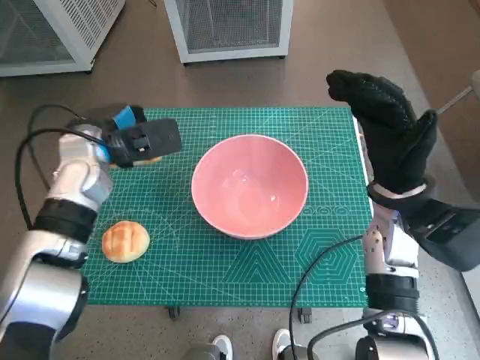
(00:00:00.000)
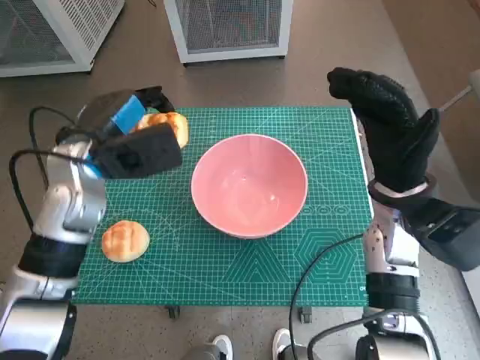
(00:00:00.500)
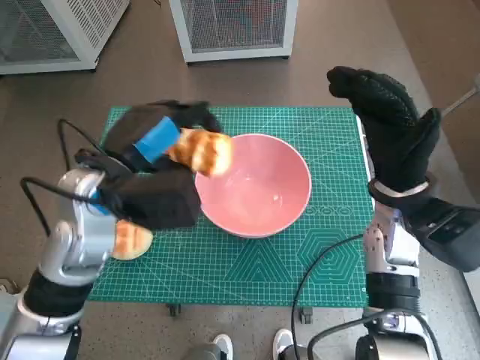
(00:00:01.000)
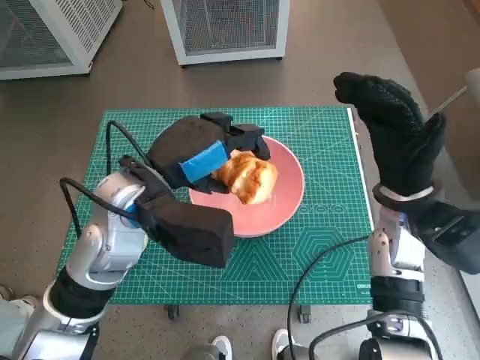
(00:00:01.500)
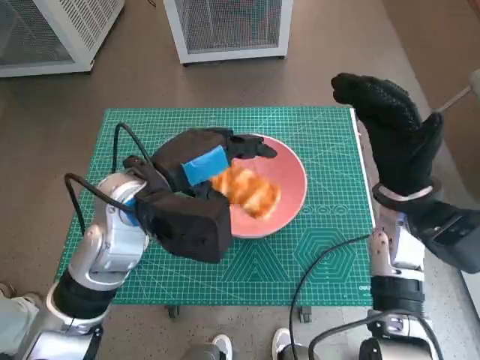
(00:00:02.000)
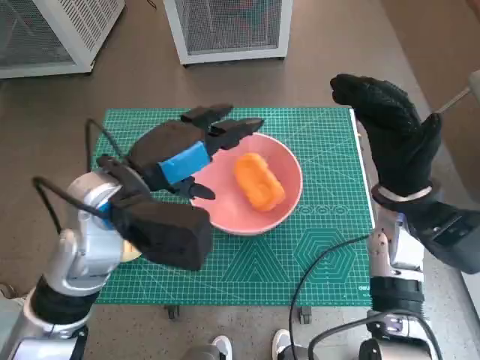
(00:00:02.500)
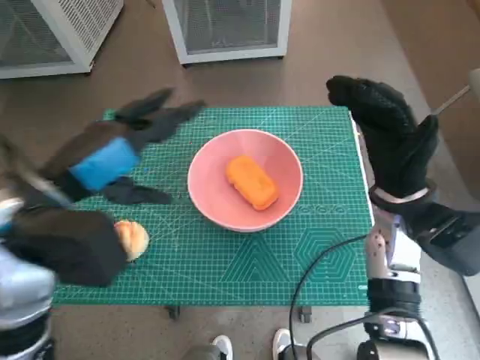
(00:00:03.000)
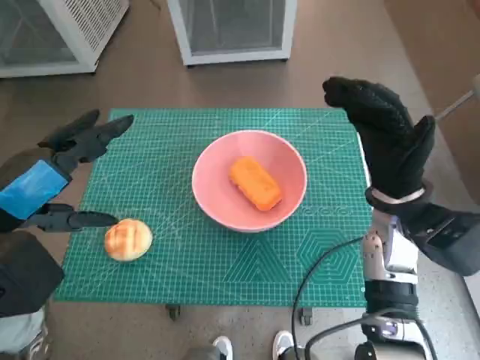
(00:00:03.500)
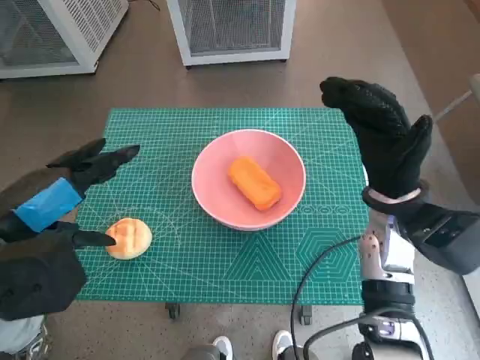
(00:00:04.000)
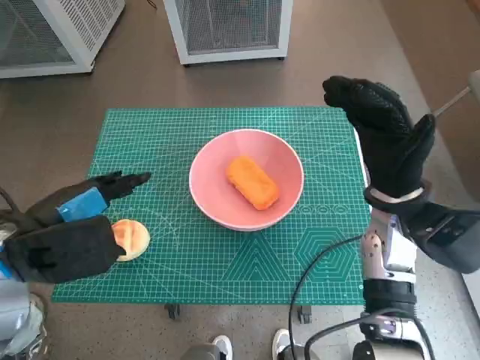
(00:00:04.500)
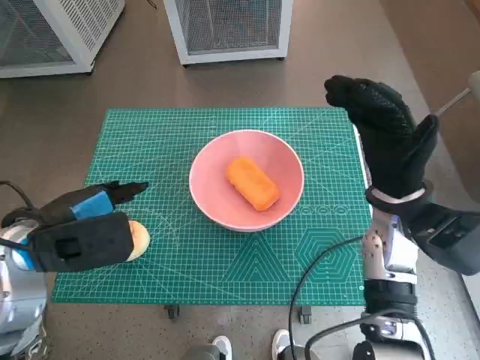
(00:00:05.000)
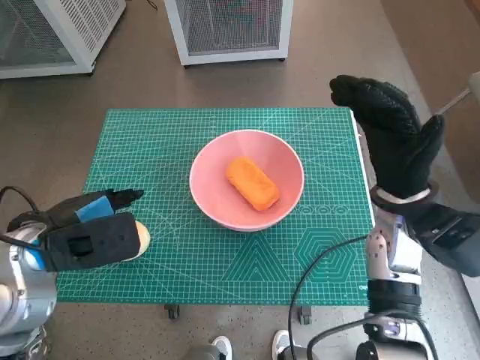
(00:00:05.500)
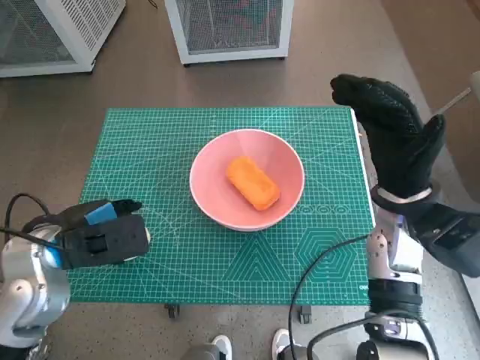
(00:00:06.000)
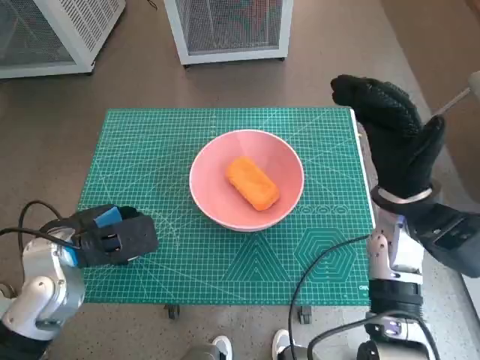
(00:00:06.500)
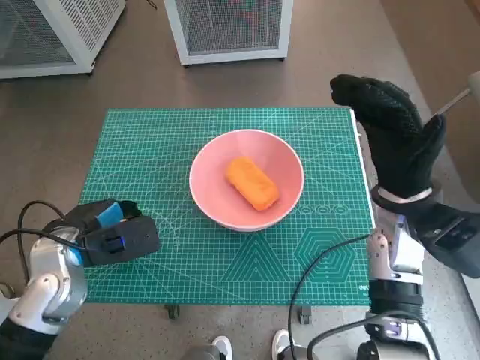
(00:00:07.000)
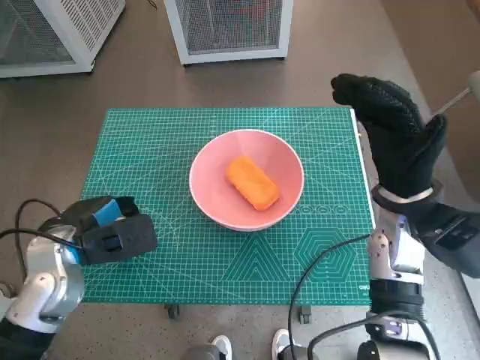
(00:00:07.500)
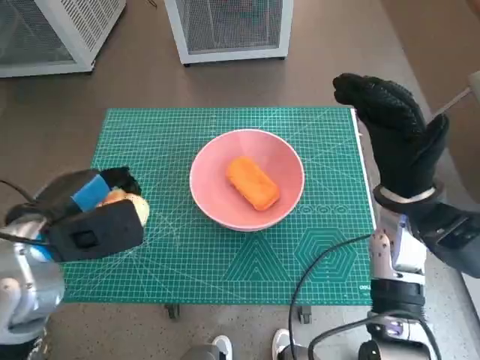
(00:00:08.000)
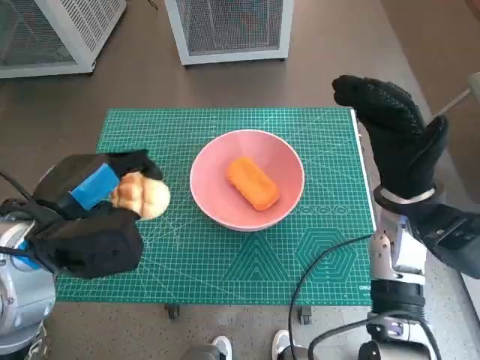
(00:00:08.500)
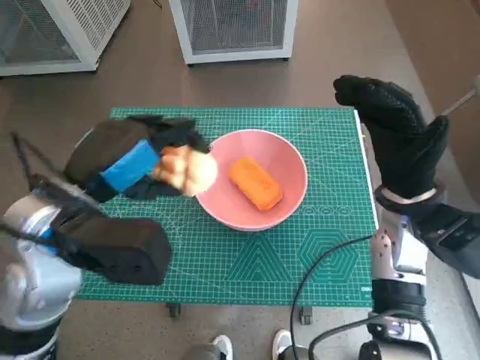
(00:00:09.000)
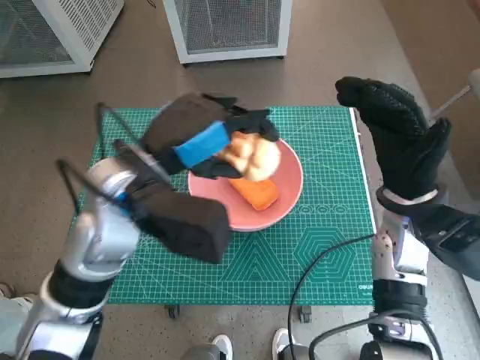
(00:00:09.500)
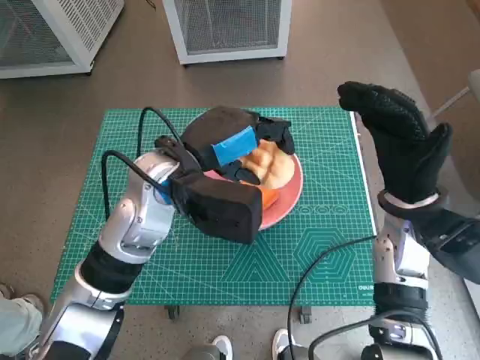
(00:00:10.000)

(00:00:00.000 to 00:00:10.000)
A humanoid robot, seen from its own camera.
Task of the whole recording: Push the bowl into the center of the table and put the bread into the bowl.
Step, 00:00:00.000 - 00:00:02.000: Place the long bread in pink bowl with left hand.
Step, 00:00:02.500 - 00:00:06.500: Grasp the round bread with left hand.
00:00:00.000 - 00:00:02.000: The left hand travels to the right and backward by about 15 cm.
00:00:02.000 - 00:00:04.000: The left hand moves to the left and backward, about 15 cm.
00:00:04.000 - 00:00:06.000: The left hand shifts roughly 10 cm downward.
00:00:06.000 - 00:00:08.000: The hands make only small movements.
00:00:08.000 - 00:00:10.000: The left hand goes approximately 15 cm to the right and forward.

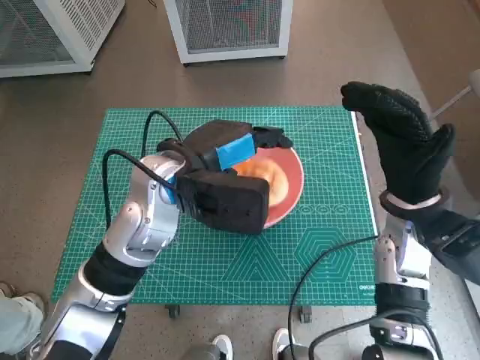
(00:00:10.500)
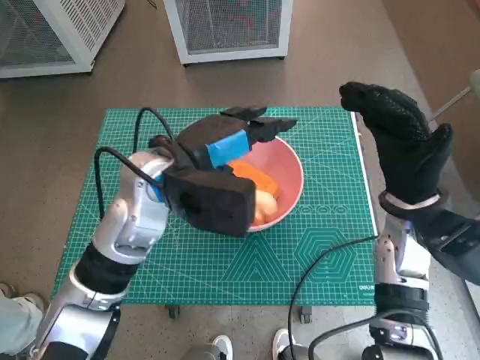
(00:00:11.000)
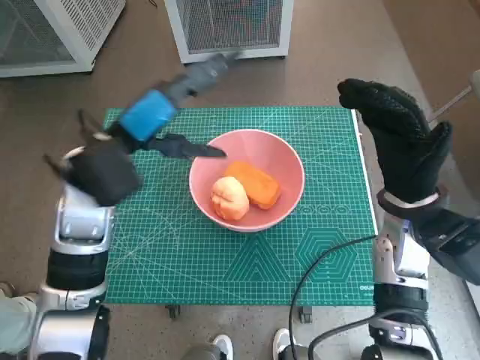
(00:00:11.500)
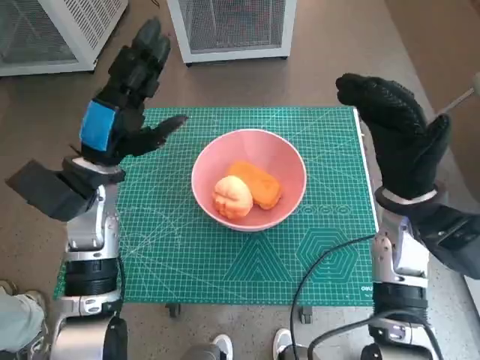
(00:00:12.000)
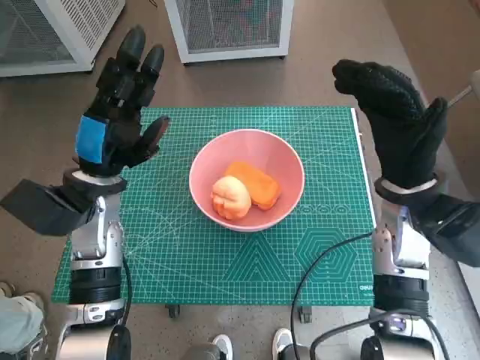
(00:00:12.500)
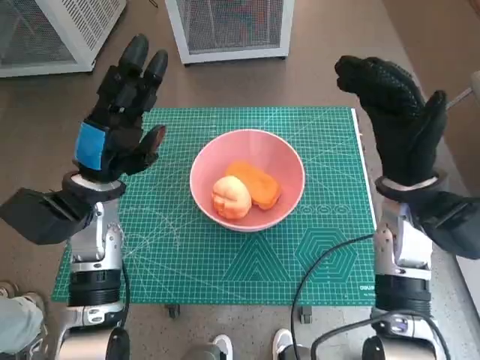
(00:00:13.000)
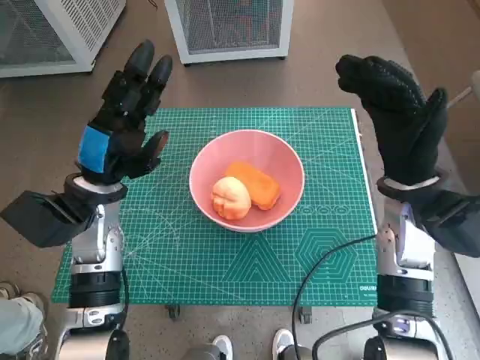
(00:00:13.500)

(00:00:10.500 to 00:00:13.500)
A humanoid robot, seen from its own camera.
Task of the whole recording: Push the bowl into the center of the table and put the bread into the bowl.
00:00:10.500 - 00:00:12.000: The left hand moves to the left, roughly 10 cm.

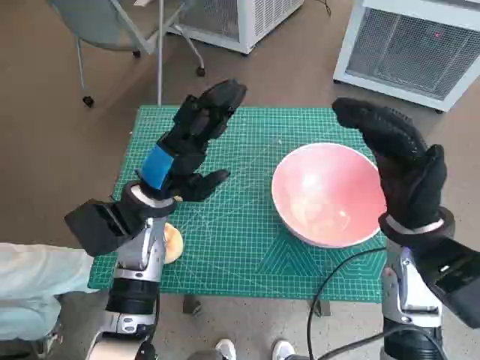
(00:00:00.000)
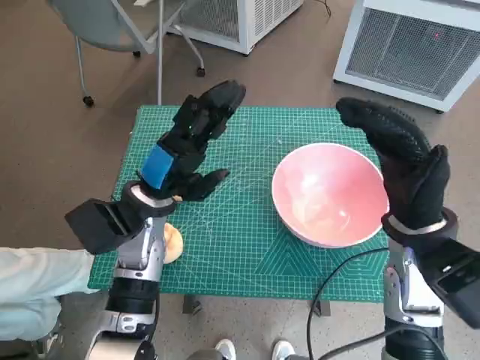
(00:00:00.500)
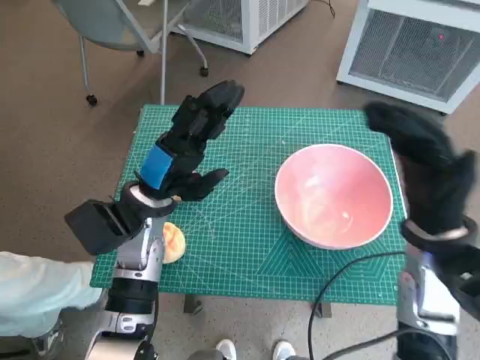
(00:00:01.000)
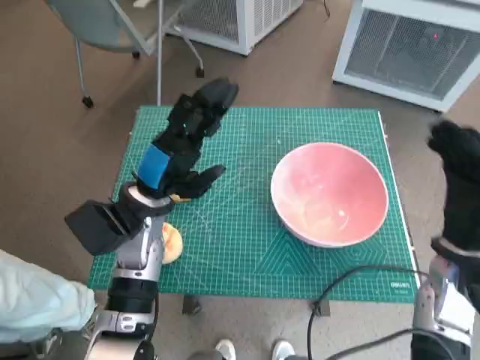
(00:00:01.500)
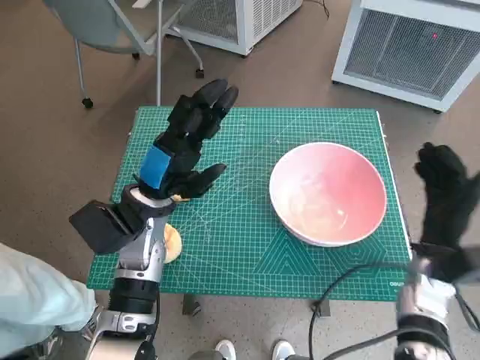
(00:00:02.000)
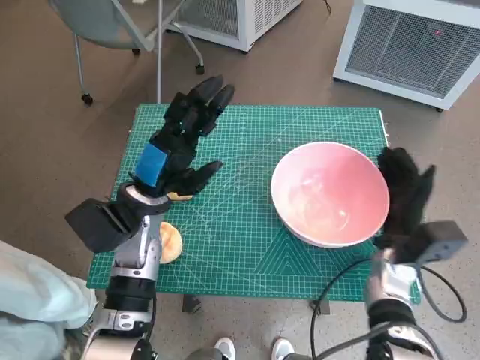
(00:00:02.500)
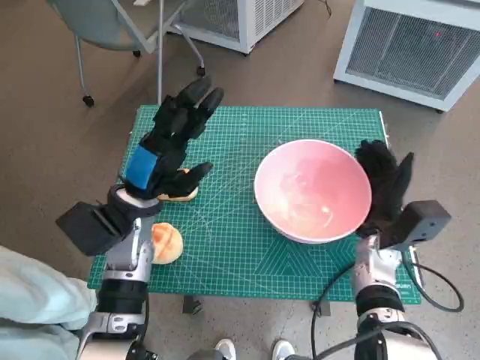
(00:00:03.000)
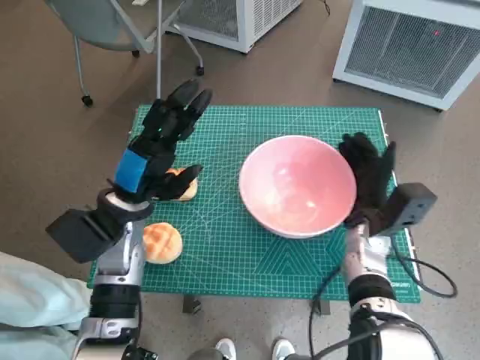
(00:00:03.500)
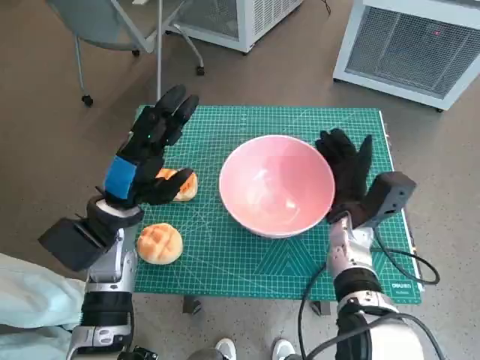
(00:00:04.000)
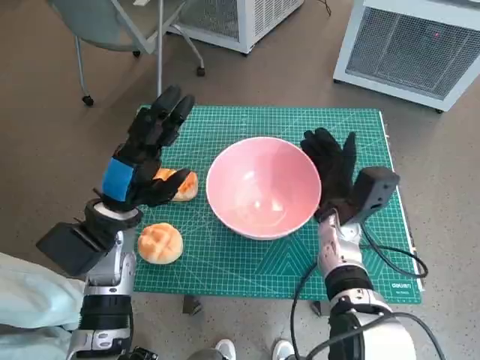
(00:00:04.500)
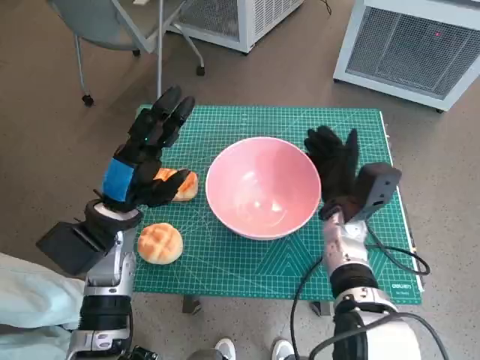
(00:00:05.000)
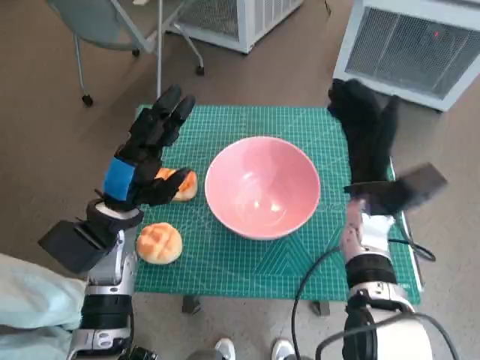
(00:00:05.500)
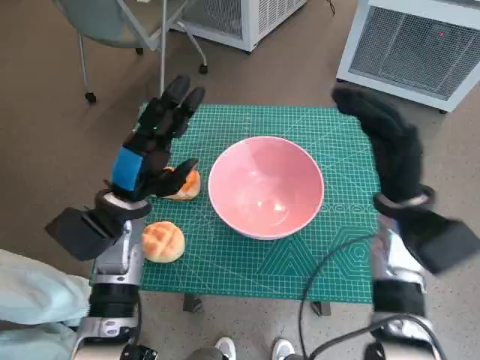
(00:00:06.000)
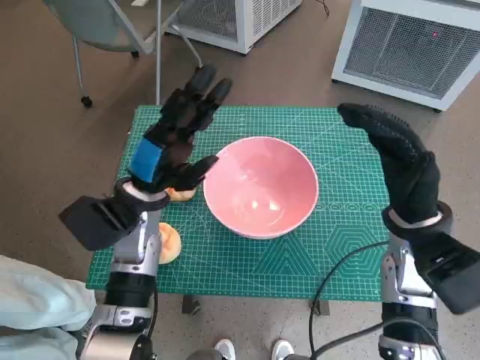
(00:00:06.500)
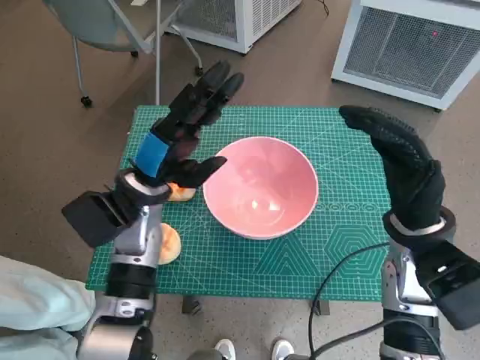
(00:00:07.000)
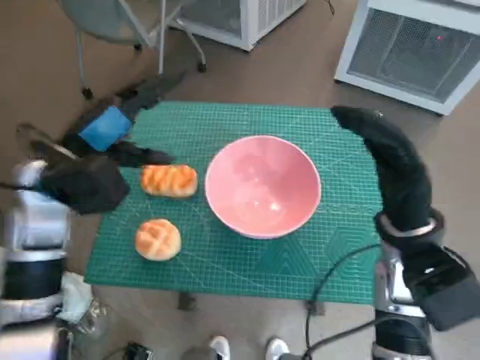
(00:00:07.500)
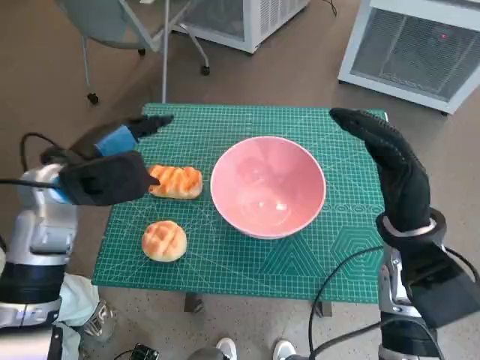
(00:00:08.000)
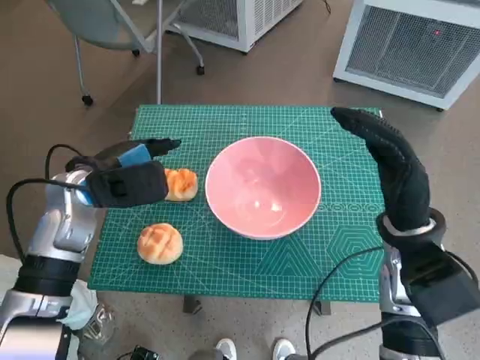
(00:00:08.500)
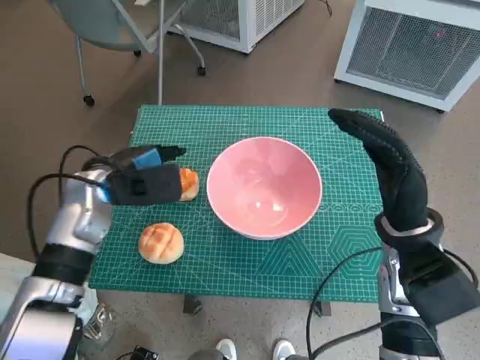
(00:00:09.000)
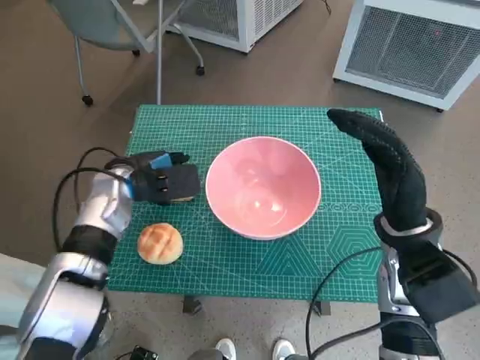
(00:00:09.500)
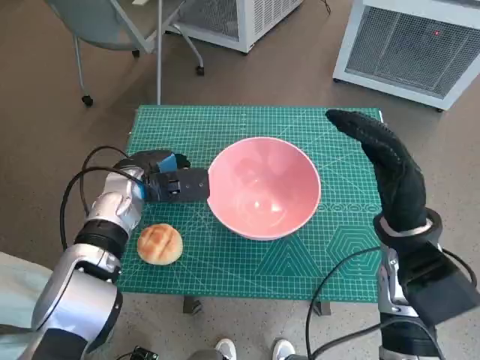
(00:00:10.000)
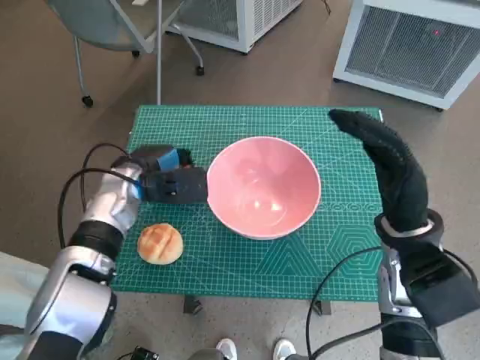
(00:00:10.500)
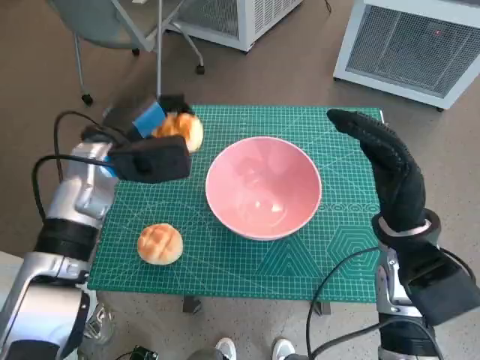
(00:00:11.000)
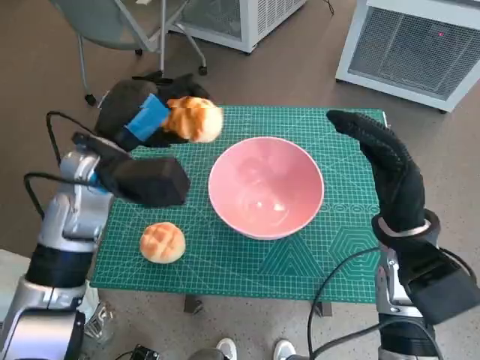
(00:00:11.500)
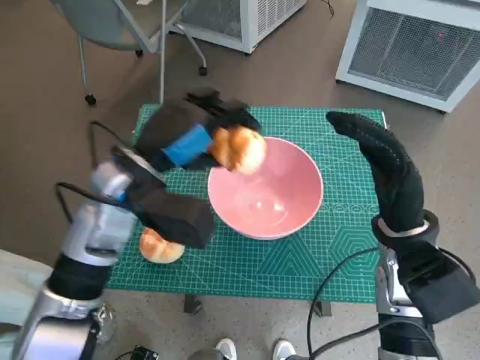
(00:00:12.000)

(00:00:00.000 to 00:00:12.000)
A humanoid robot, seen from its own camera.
Task of the whole recording: Push the bowl into the center of the table and put the bread into the bowl.
Step, 00:00:00.000 - 00:00:05.000: Move the pink bowl to the center of table with right hand.
Step, 00:00:05.500 - 00:00:10.000: Grasp the long bread with left hand.
00:00:02.000 - 00:00:04.000: The right hand is displaced to the left and forward by some 10 cm.
00:00:04.000 - 00:00:06.000: The right hand goes approximately 10 cm upward.
00:00:06.000 - 00:00:08.000: The left hand moves upward, about 5 cm.
00:00:08.000 - 00:00:10.000: The left hand travels downward and forward by approximately 10 cm.
00:00:10.000 - 00:00:12.000: The left hand goes approximately 10 cm upward and backward.
